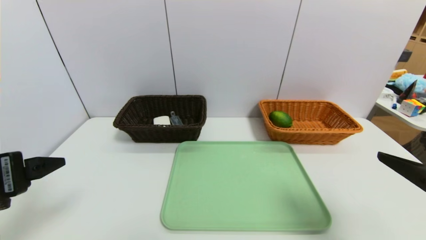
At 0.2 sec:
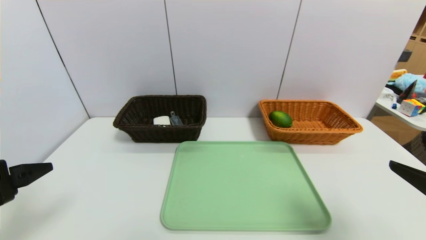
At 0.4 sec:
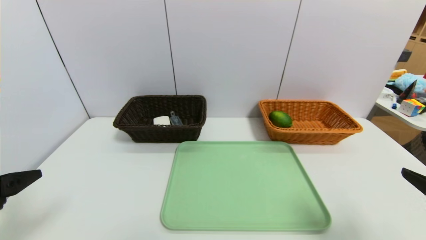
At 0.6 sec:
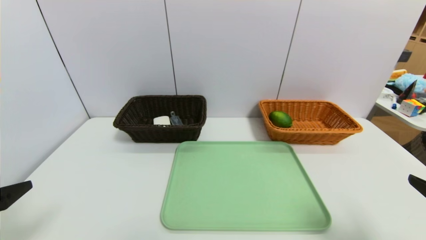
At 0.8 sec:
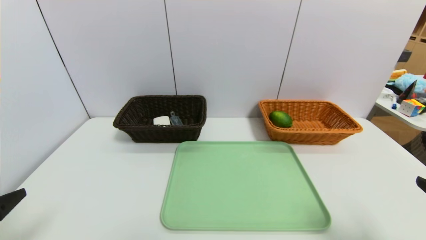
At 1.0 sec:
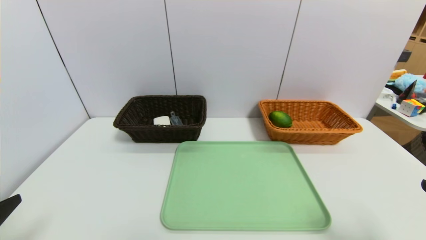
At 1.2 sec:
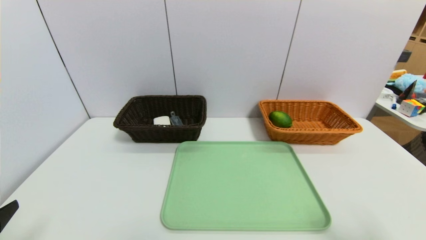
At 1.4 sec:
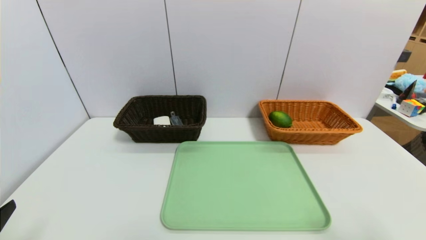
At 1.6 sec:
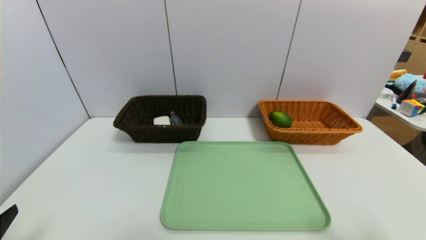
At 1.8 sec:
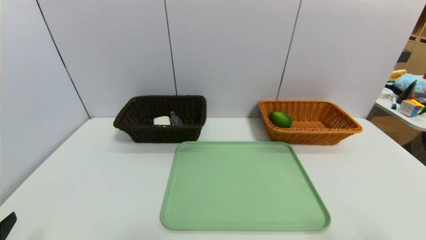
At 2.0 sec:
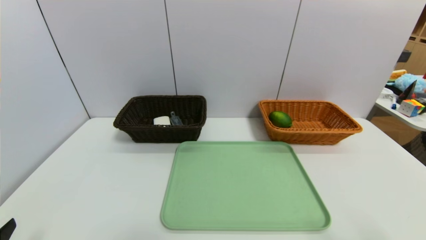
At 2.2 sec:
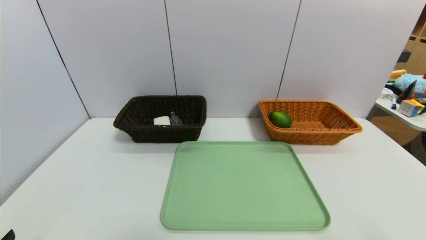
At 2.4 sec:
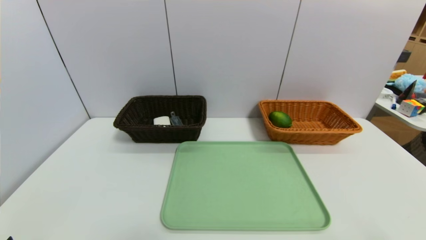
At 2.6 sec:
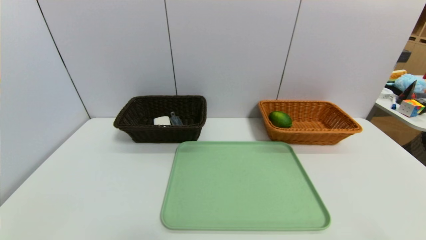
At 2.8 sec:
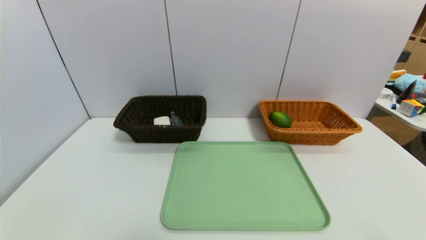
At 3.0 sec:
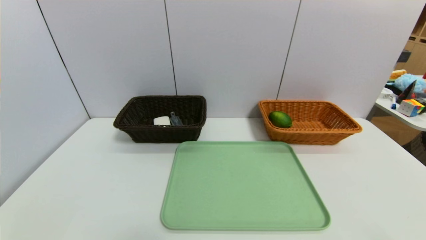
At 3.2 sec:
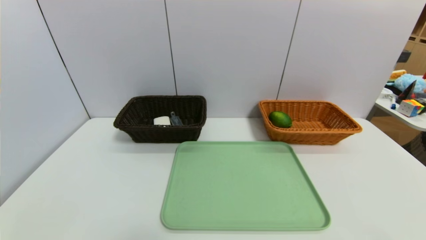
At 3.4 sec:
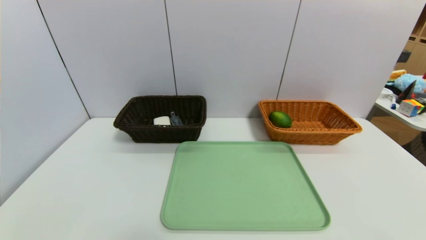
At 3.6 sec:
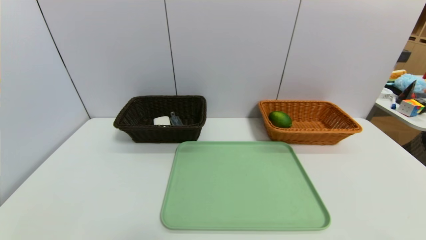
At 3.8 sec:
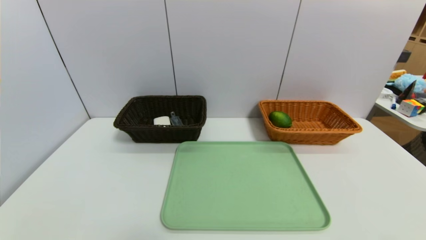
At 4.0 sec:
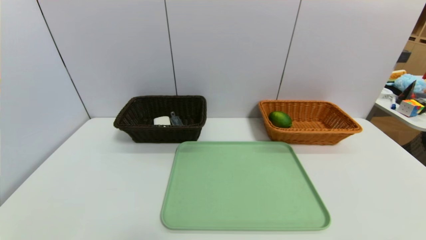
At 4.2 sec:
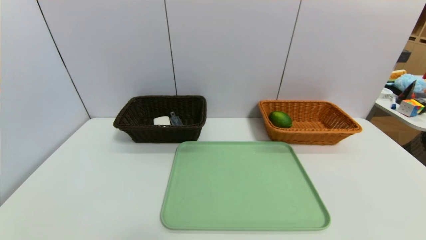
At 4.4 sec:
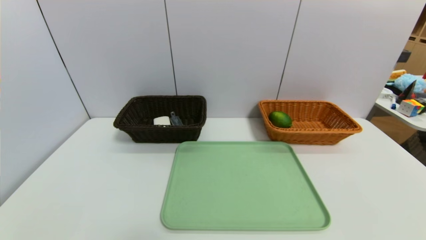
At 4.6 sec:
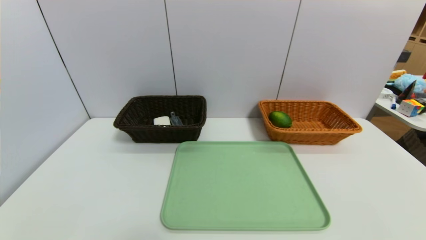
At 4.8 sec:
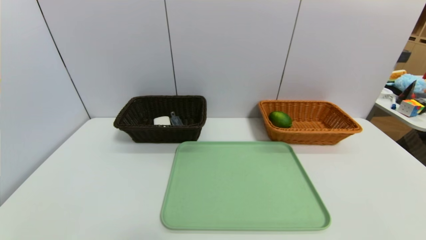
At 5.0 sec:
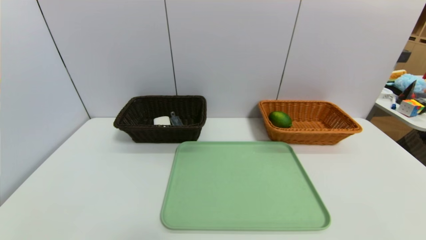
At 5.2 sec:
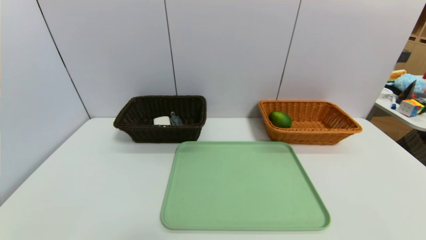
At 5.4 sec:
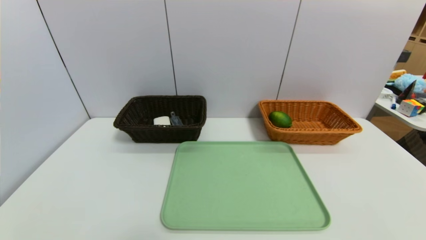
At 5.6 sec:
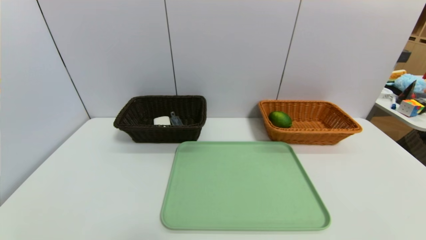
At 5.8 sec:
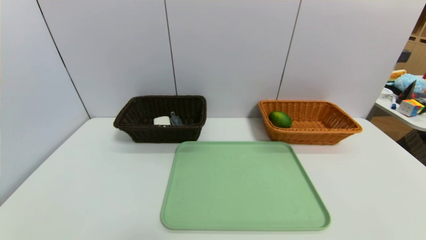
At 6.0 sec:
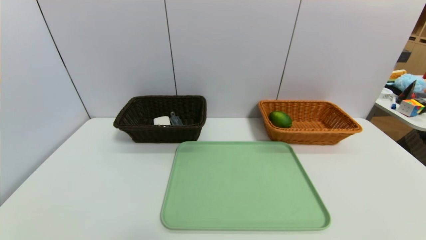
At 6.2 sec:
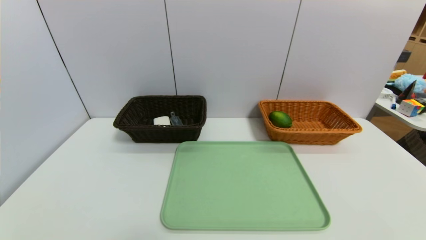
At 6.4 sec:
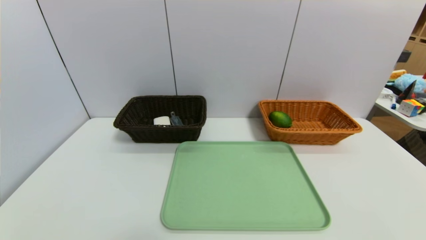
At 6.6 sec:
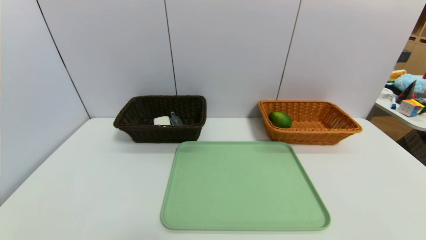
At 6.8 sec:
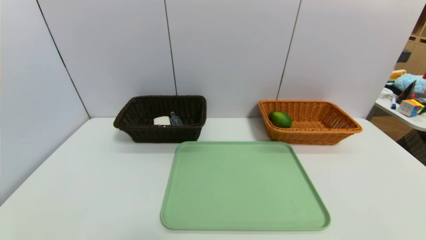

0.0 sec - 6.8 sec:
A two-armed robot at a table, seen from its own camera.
Task of the whole recording: place the food in the right basket with the right gripper, and place the non food items in the left basket with the left gripper.
0.0 sec - 1.4 sec: The right gripper heads backward, covering some 5 cm; the left gripper is displaced downward and backward by about 10 cm.
5.4 sec - 6.8 sec: Neither gripper changes place.
